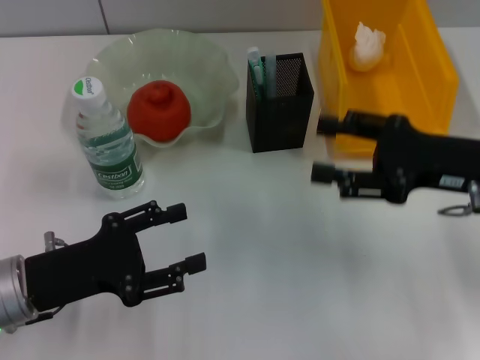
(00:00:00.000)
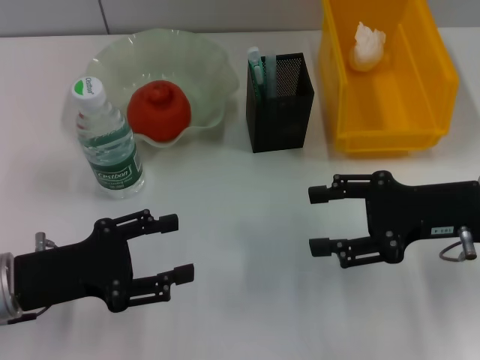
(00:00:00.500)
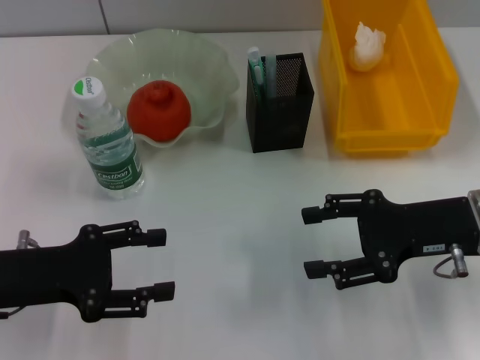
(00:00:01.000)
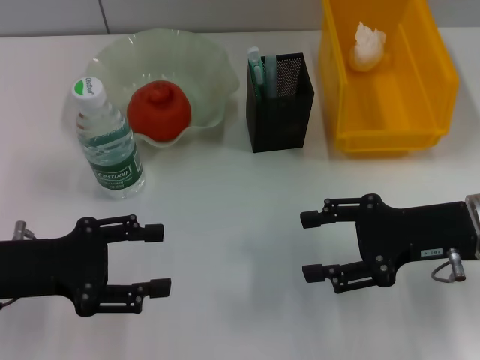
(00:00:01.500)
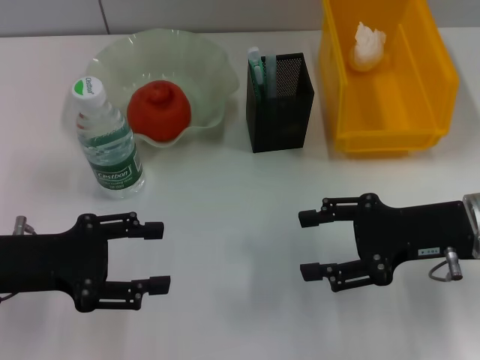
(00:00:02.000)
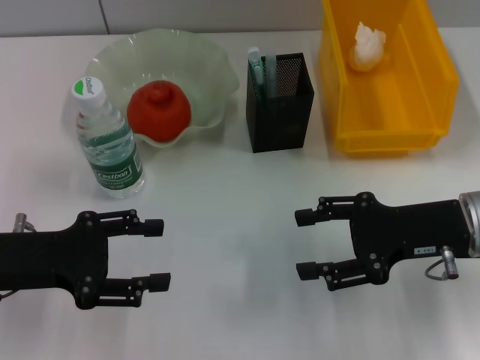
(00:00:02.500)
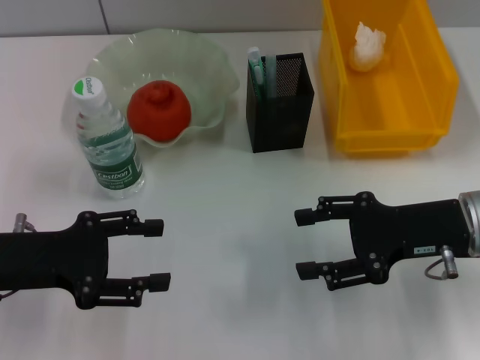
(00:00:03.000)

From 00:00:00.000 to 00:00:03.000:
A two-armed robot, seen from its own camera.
From 00:00:01.500 to 00:00:03.000: Neither gripper changes place.

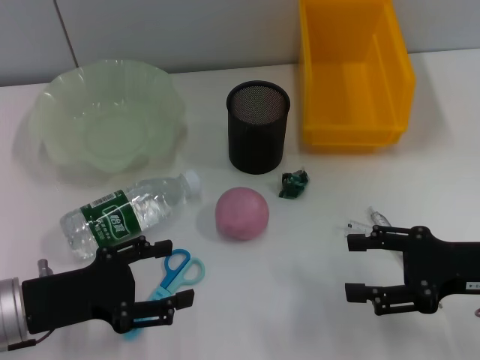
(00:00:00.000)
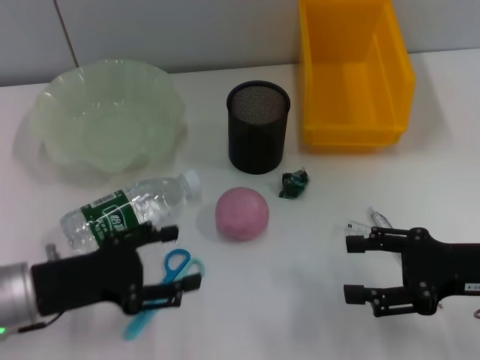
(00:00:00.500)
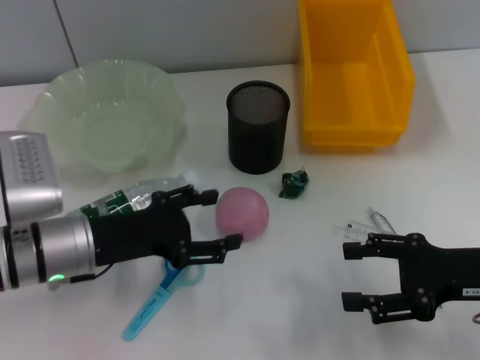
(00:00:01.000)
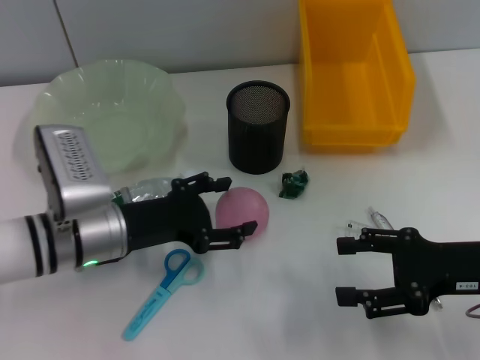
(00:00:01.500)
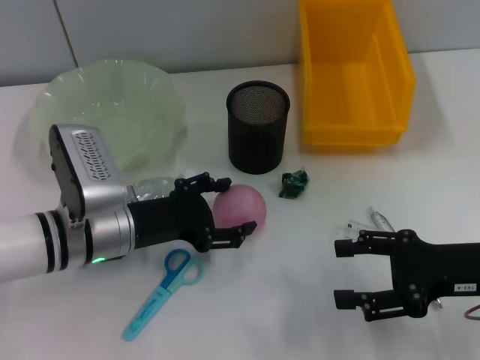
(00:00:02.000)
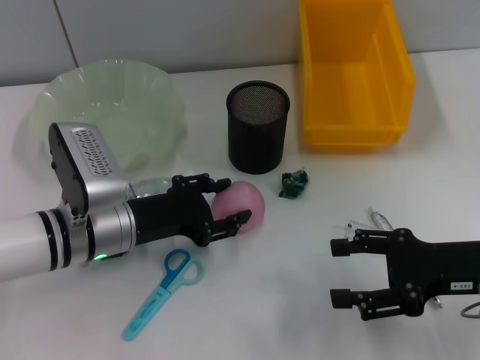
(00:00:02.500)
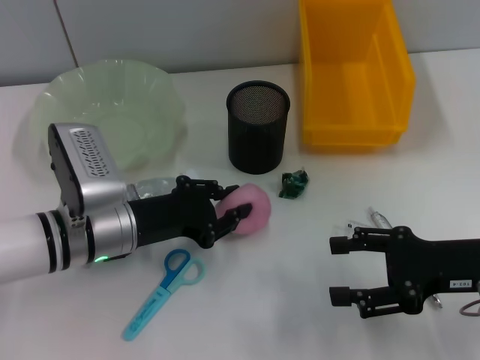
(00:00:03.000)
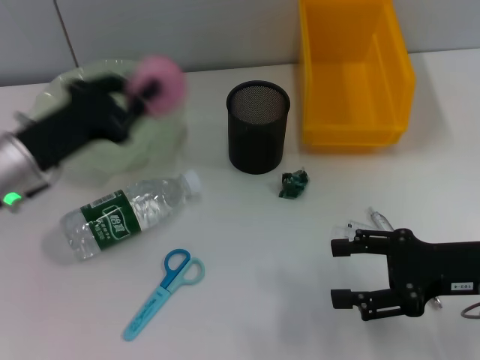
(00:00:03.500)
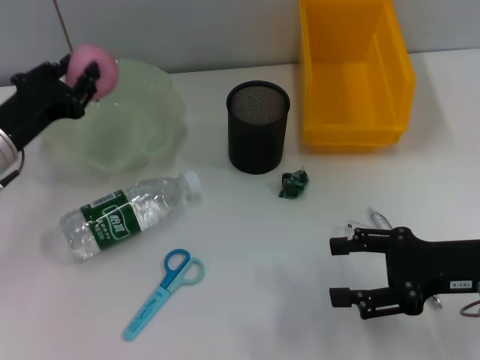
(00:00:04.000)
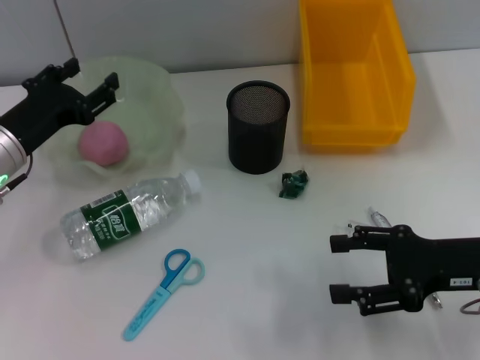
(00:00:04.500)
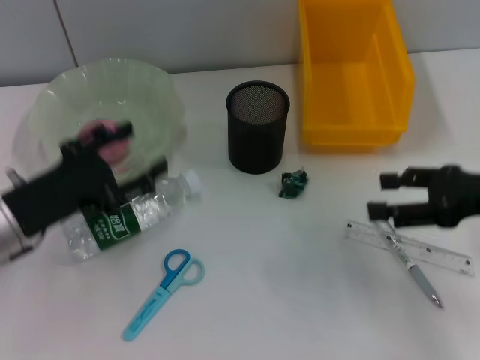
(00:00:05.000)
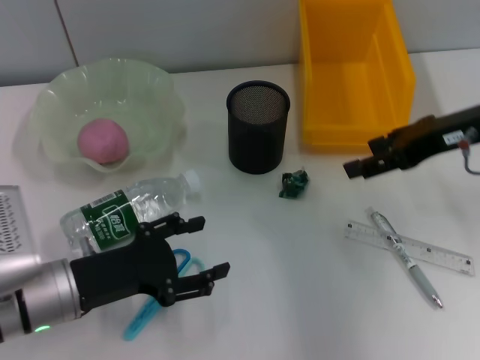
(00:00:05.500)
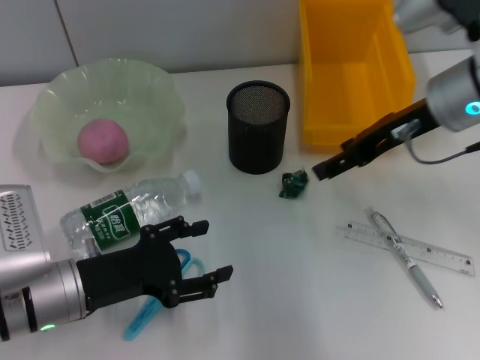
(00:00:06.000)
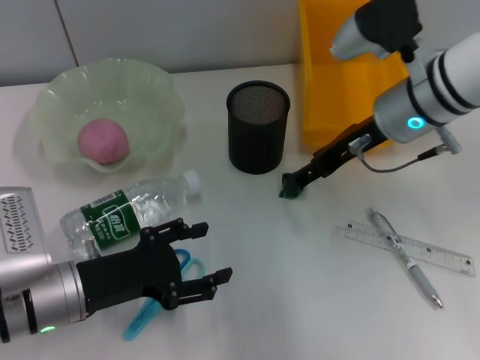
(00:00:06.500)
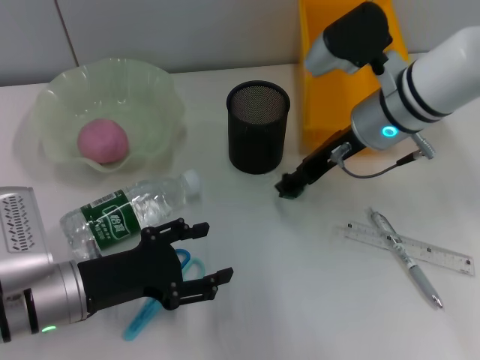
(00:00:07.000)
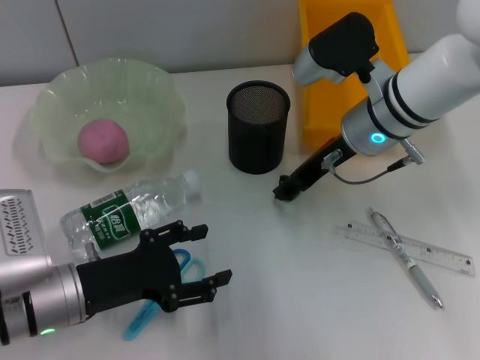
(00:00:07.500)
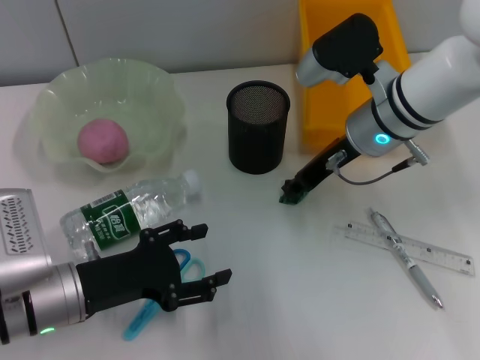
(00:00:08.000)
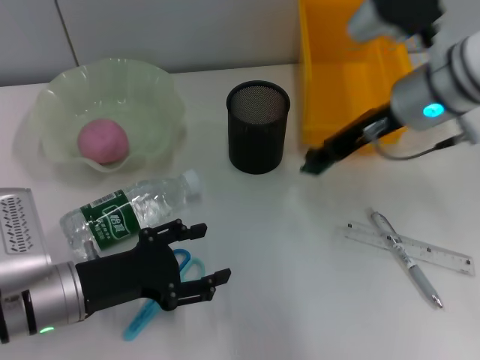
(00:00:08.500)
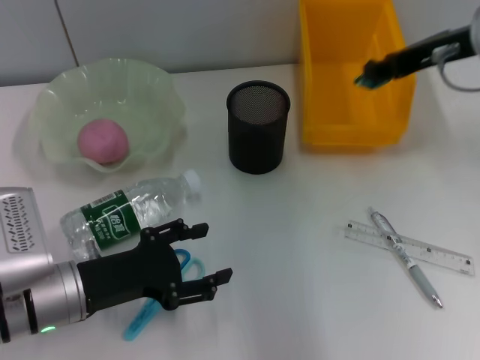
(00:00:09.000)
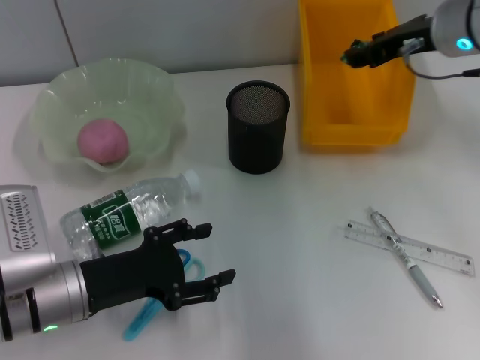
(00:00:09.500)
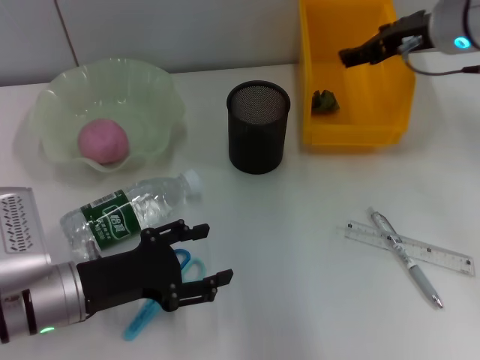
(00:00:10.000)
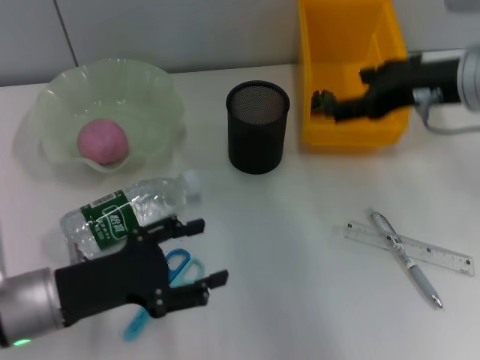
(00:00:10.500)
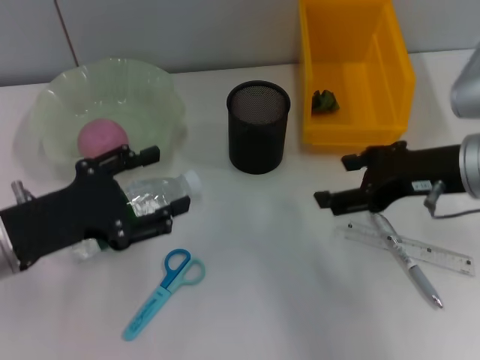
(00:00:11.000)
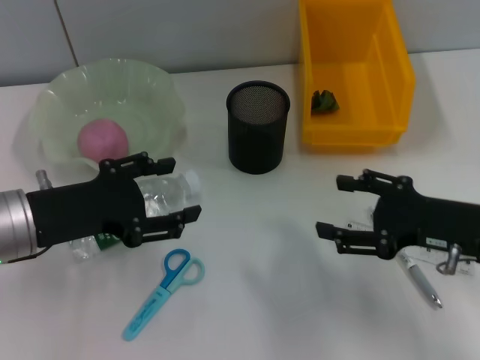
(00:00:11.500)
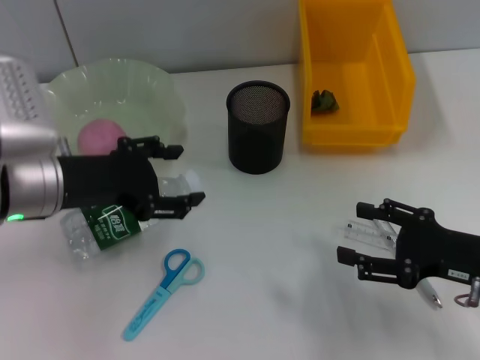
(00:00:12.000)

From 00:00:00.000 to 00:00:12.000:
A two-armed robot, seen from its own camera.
Step, from 00:00:00.000 to 00:00:02.500: Grab the peach with the left hand.
Step, from 00:00:03.000 to 00:00:04.000: Place the orange into the fruit bowl with the left hand.
Step, from 00:00:05.000 to 00:00:08.000: Grab the plastic with the right hand.
Step, from 00:00:08.500 to 00:00:10.000: Place the plastic into the trash can with the right hand.
From 00:00:00.000 to 00:00:02.000: The left gripper is displaced to the right and forward by approximately 10 cm.
From 00:00:02.000 to 00:00:04.000: The left gripper is displaced to the left by approximately 10 cm, and closes its fingers.
From 00:00:04.000 to 00:00:06.000: The left gripper is displaced backward and to the right by some 10 cm, and opens; the right gripper heads forward, upward and to the left, covering approximately 20 cm.
From 00:00:06.000 to 00:00:08.000: The right gripper shifts approximately 10 cm to the left and downward, and closes its fingers.
From 00:00:08.000 to 00:00:10.000: The right gripper heads upward and to the right, covering roughly 10 cm, and opens its fingers.
From 00:00:10.000 to 00:00:12.000: The left gripper moves upward and forward, some 10 cm. The right gripper shifts some 25 cm backward and downward.

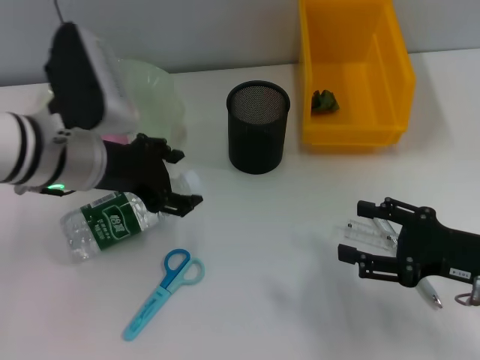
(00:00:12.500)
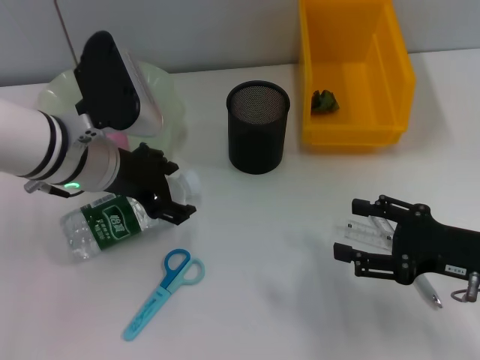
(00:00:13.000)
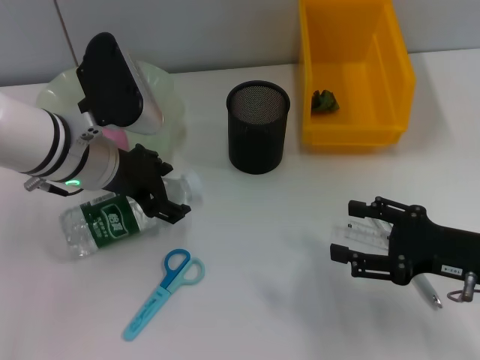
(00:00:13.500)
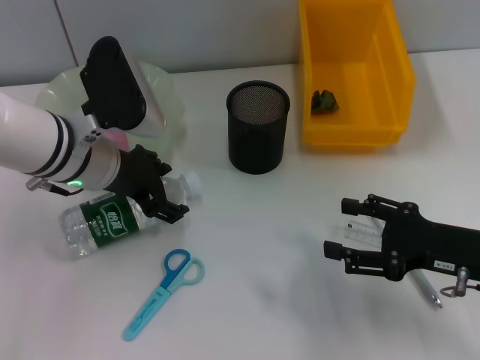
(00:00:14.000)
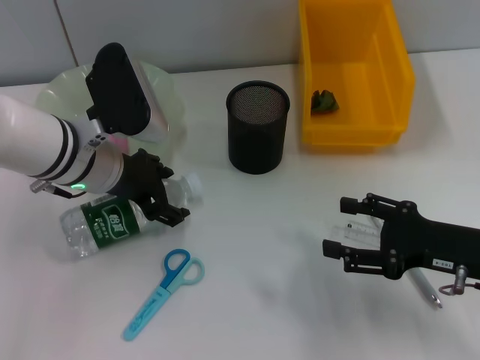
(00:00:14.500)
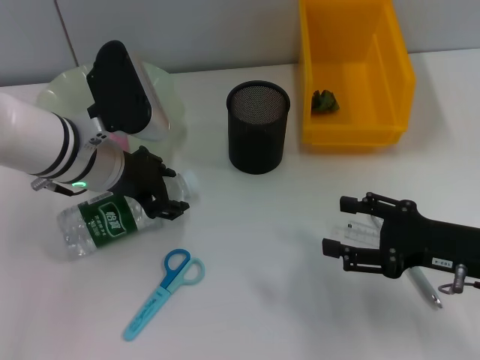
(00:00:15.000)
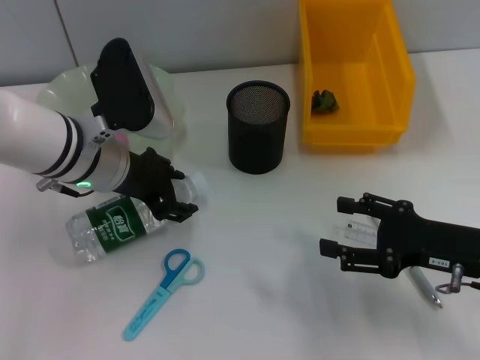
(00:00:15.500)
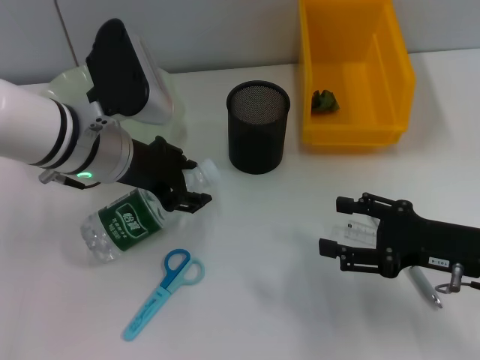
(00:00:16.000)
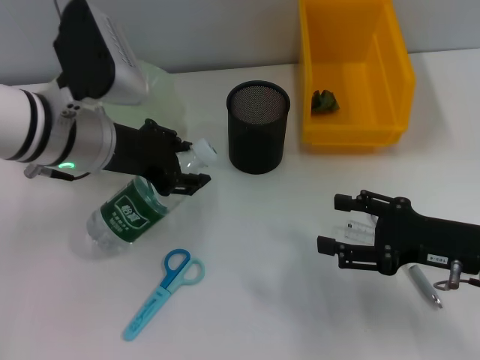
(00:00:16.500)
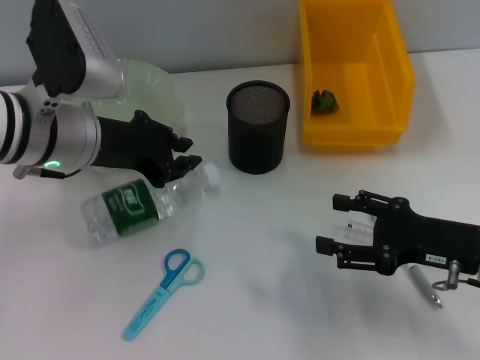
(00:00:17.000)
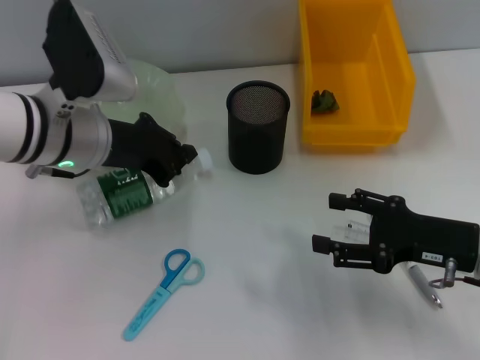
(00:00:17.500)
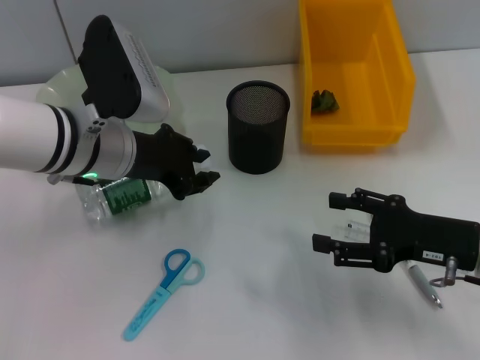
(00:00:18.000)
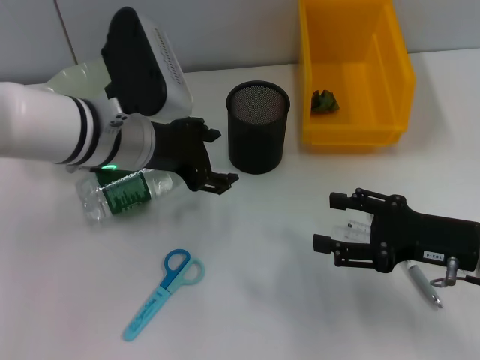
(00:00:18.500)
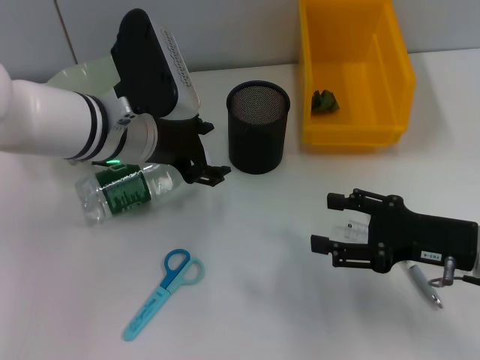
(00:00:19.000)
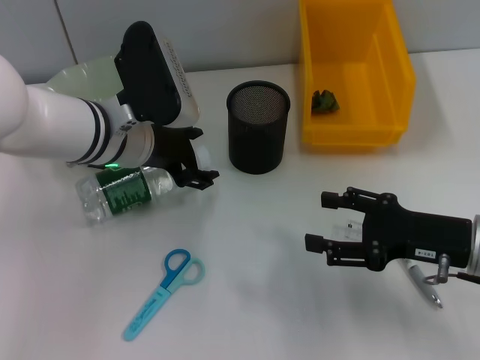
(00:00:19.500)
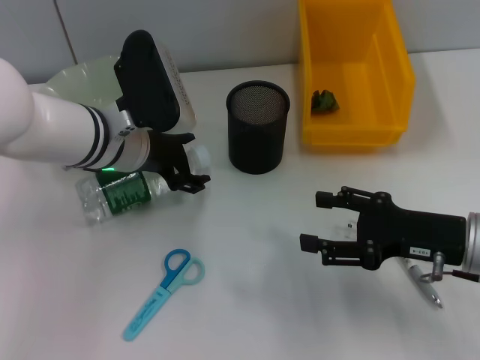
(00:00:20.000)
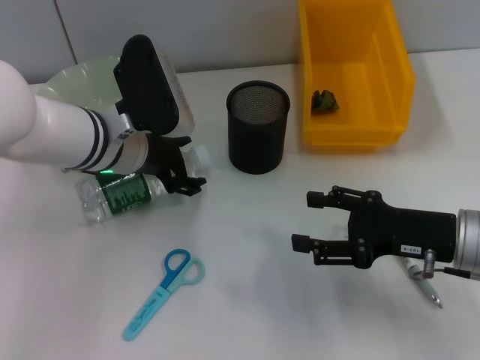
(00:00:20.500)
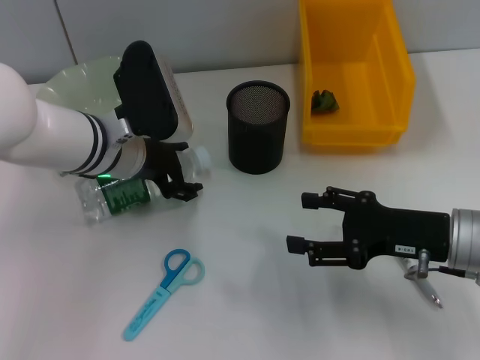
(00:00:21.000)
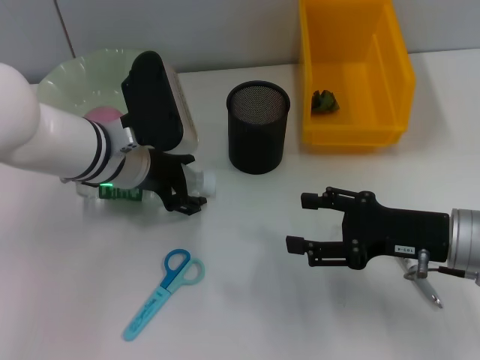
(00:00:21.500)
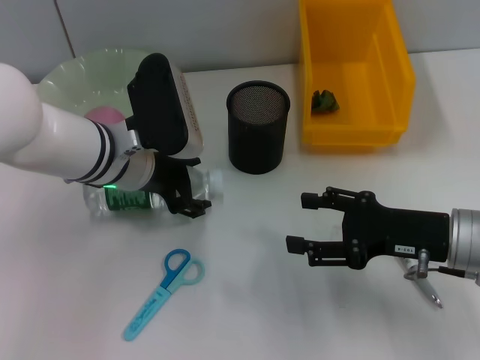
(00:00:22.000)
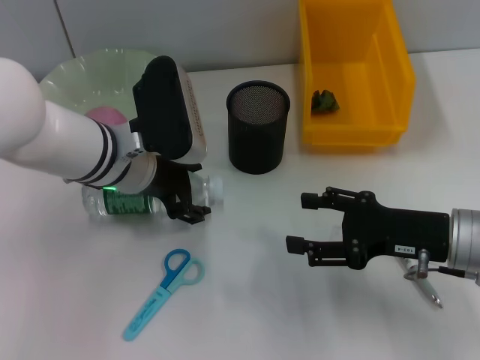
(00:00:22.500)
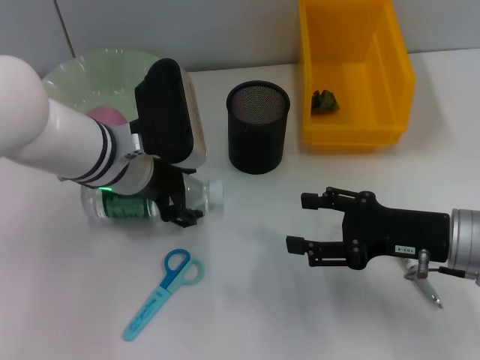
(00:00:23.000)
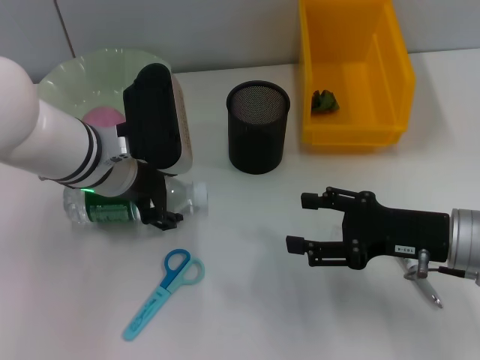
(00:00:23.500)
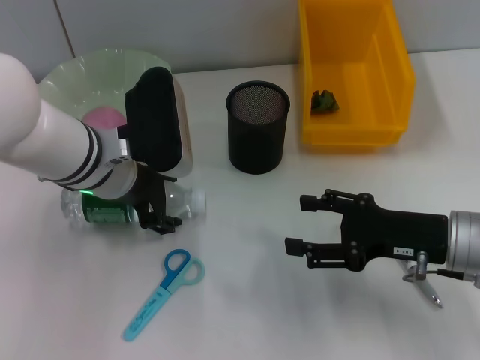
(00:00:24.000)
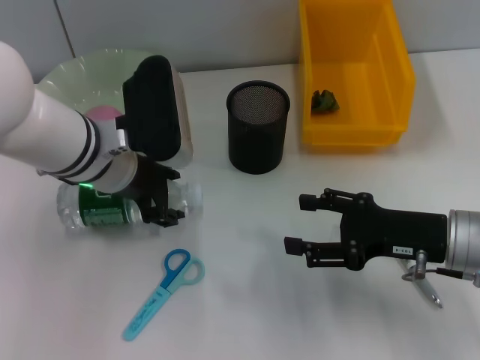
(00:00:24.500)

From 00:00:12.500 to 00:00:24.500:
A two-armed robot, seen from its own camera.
From 00:00:12.500 to 00:00:14.500: The grippers stay close to where they were, moving slightly.
From 00:00:14.500 to 00:00:16.500: The left gripper closes its fingers.
From 00:00:16.500 to 00:00:18.500: The left gripper closes, then reopens.
From 00:00:18.500 to 00:00:22.500: The grippers stay close to where they were, moving slightly.
From 00:00:22.500 to 00:00:24.500: The grippers make only small movements.
